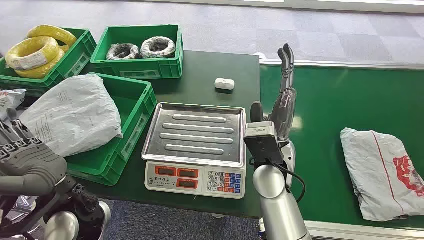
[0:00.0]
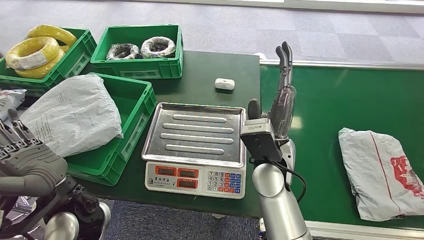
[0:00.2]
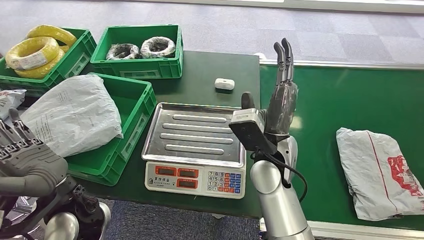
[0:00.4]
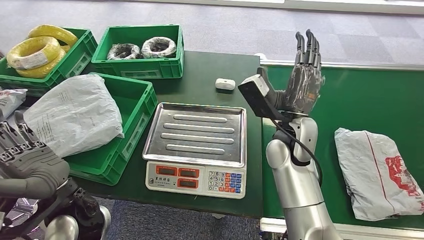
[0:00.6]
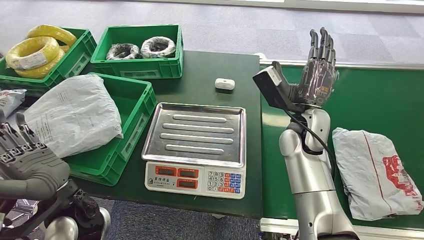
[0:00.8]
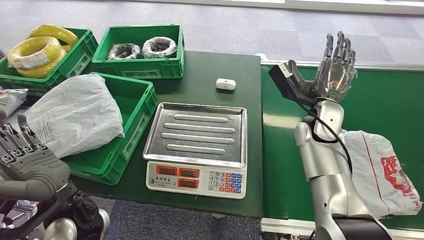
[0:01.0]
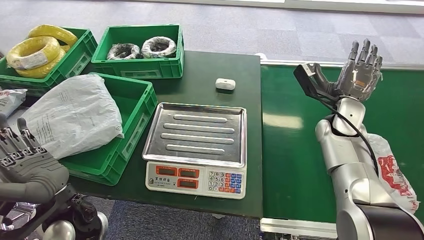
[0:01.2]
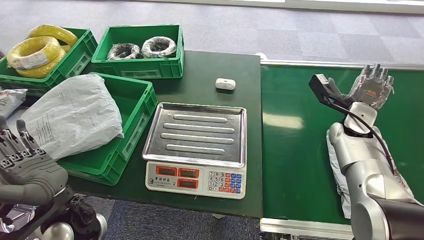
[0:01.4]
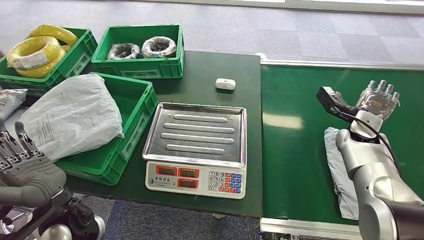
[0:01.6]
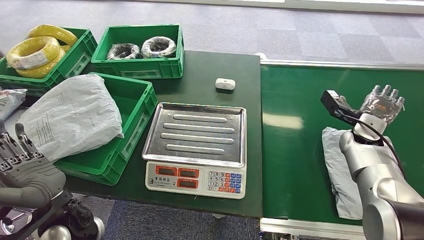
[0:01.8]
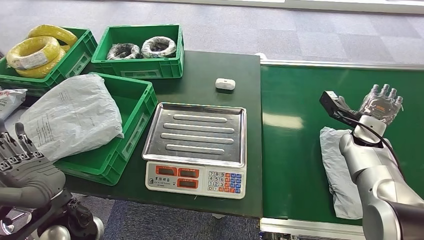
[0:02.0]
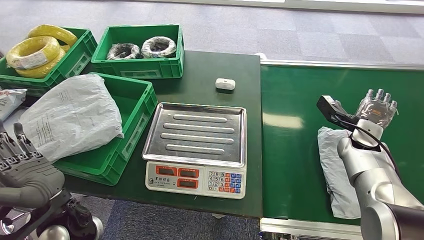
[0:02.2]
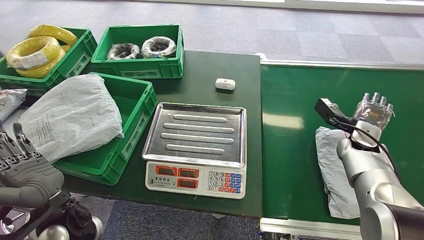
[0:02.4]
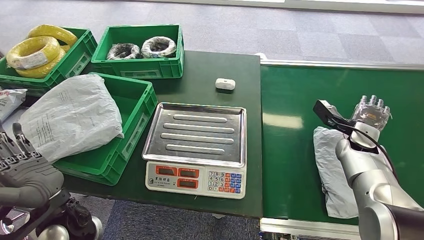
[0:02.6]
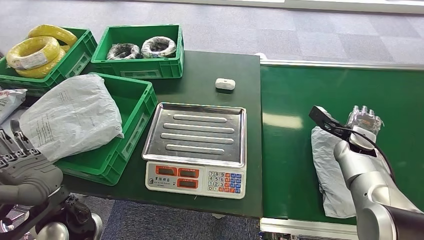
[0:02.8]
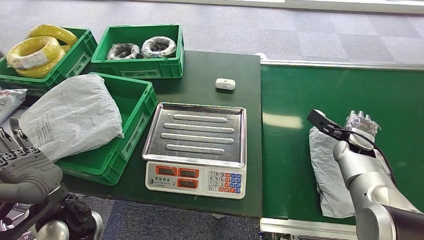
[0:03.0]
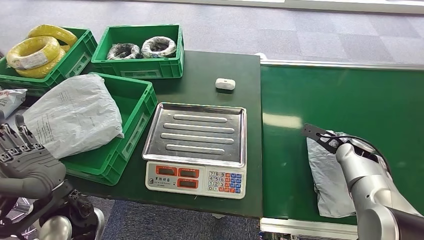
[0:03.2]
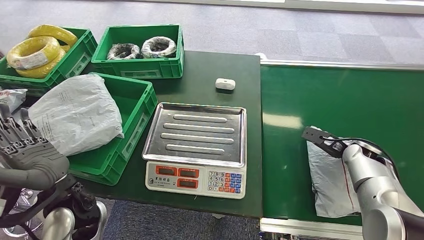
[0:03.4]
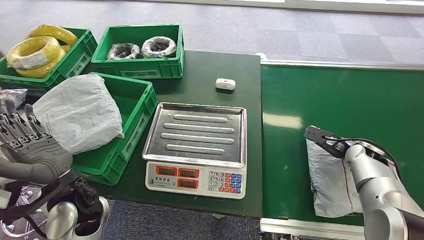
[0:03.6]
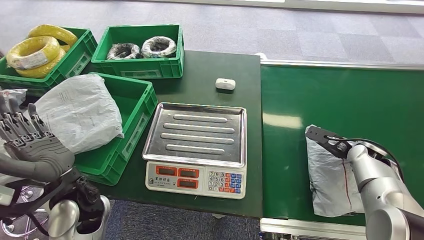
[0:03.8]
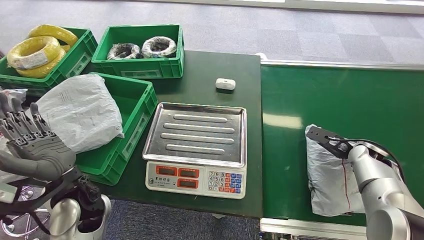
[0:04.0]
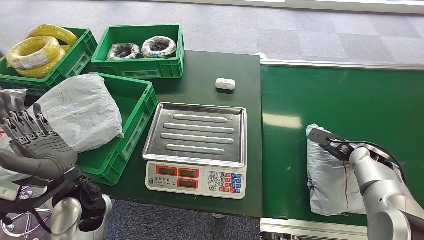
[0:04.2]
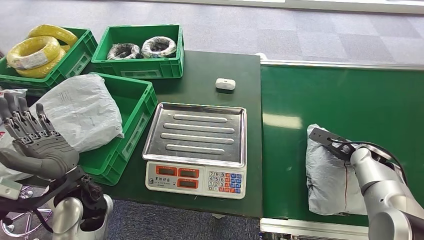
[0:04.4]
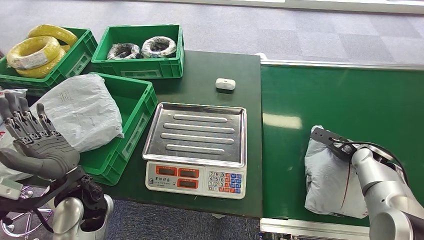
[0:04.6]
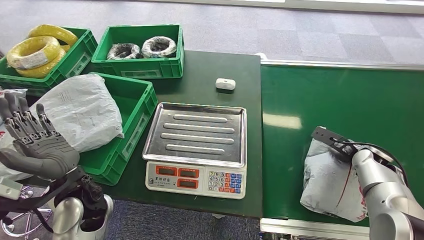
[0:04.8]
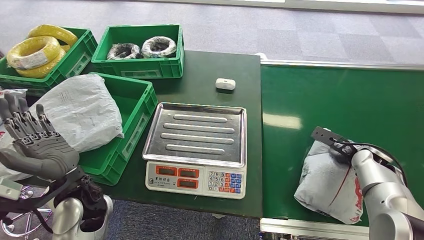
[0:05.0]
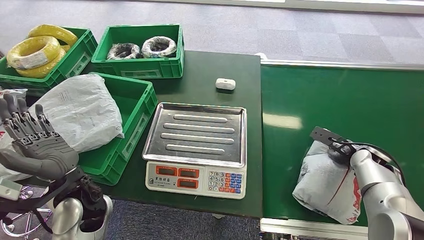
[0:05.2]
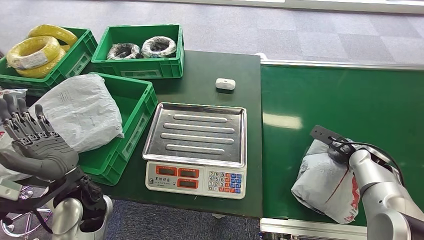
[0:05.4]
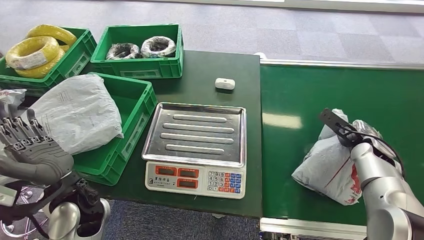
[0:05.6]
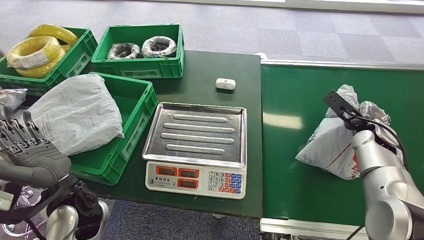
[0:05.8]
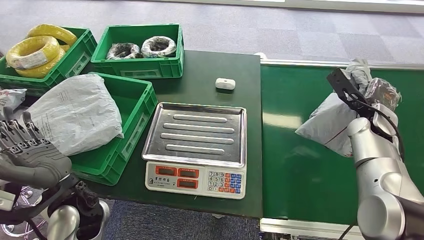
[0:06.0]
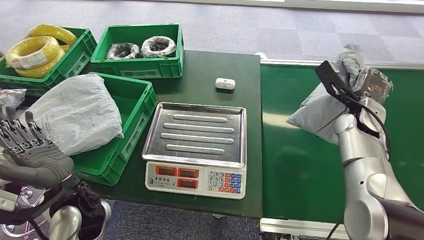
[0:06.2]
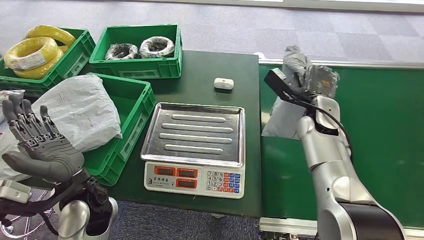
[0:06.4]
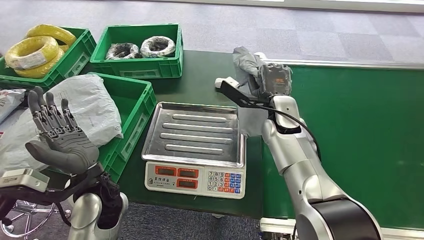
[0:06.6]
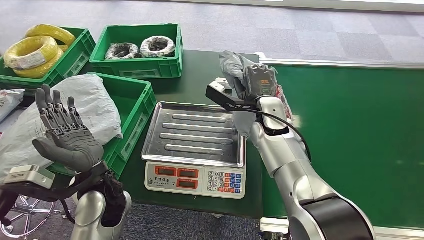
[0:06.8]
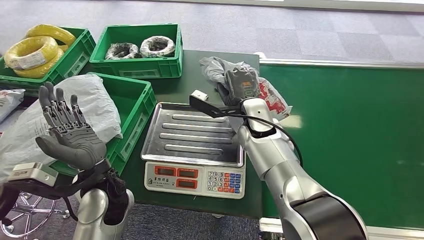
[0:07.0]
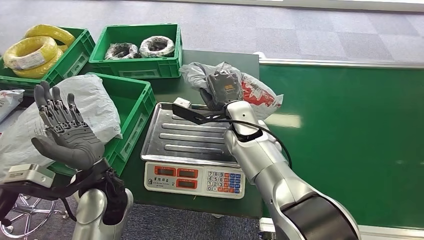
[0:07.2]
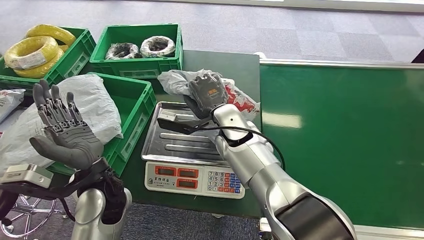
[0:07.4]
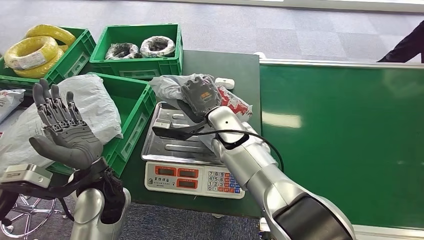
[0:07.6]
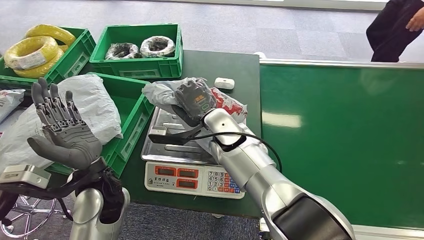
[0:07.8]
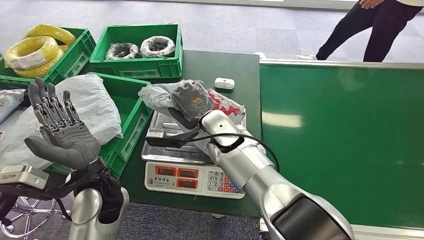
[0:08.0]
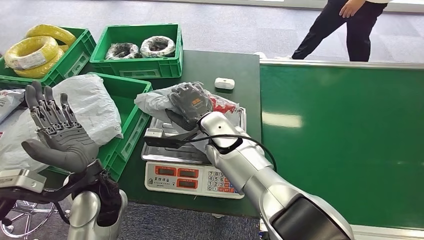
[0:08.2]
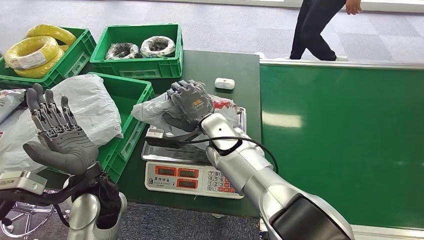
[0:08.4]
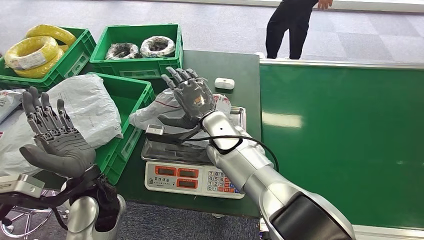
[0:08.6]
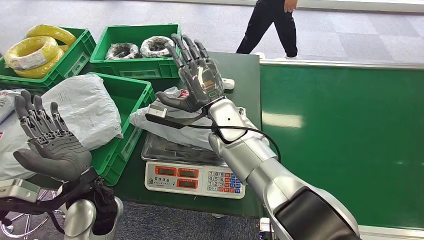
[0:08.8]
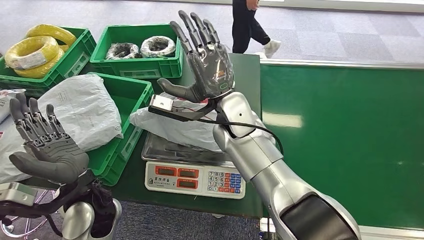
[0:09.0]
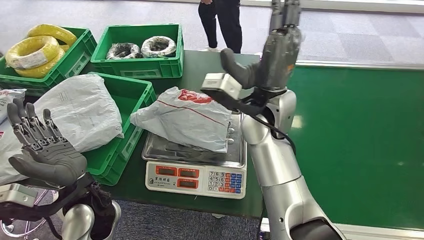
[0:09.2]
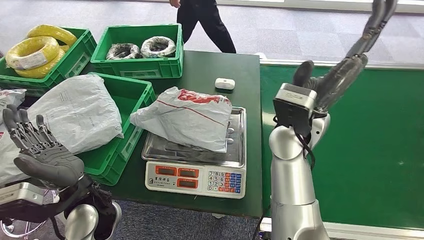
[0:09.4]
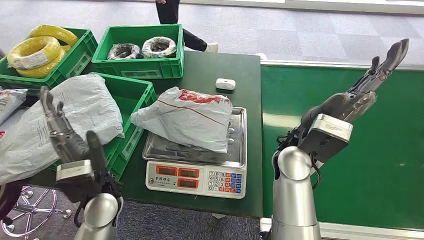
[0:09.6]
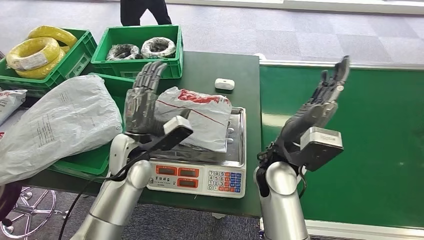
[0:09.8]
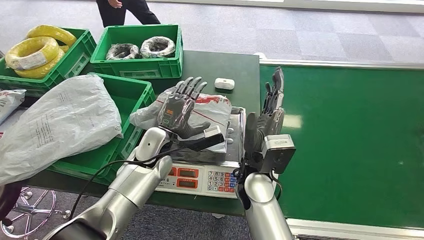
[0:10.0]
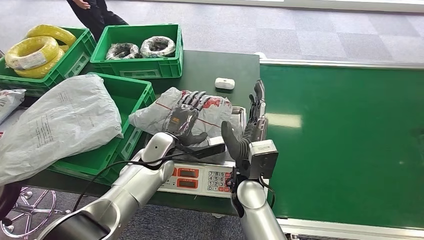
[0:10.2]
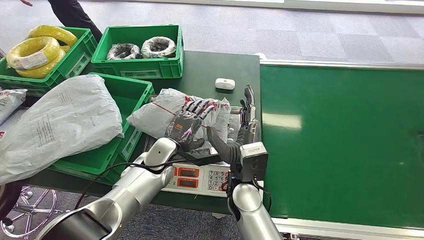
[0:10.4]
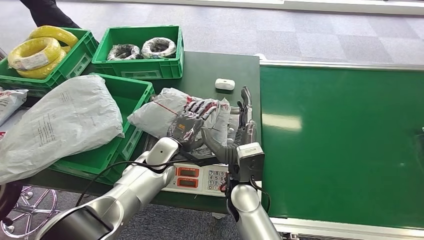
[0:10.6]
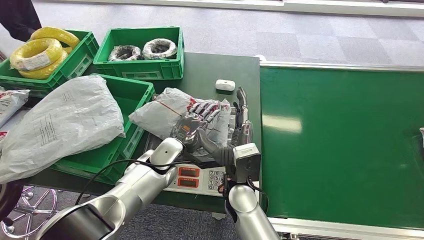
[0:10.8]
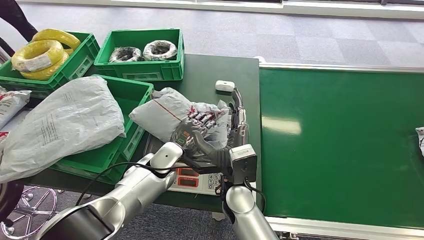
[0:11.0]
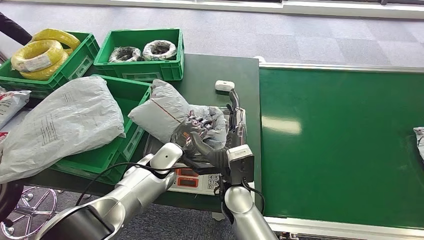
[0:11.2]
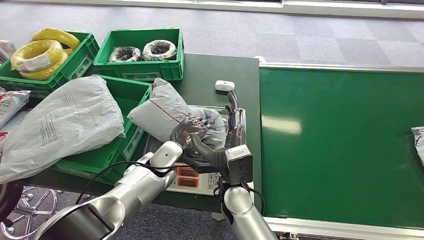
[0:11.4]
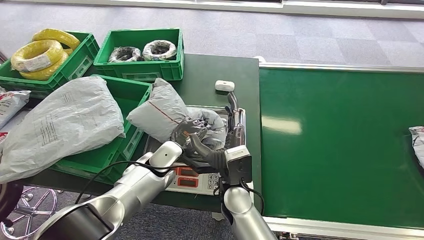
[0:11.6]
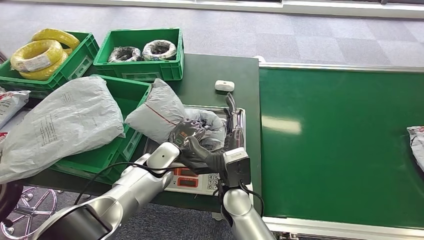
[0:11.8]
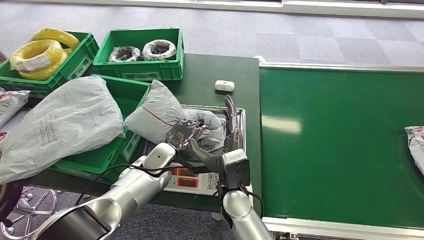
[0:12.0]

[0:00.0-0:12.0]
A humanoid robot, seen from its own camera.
Step, 0:00.0 to 0:06.2: Pick up the package from the conveyor belt.
Step, 0:06.4 to 0:09.4: Place the package onto the inbound machine.
0:01.6 to 0:03.0: The right hand moves roughly 5 cm.
0:03.0 to 0:04.4: The right hand shifts by roughly 5 cm.

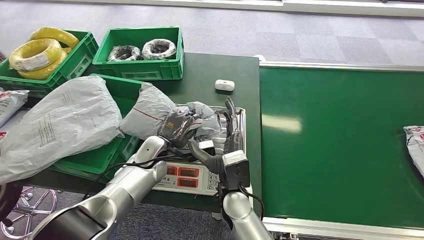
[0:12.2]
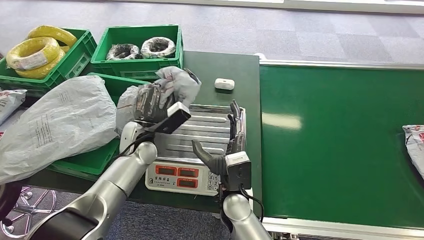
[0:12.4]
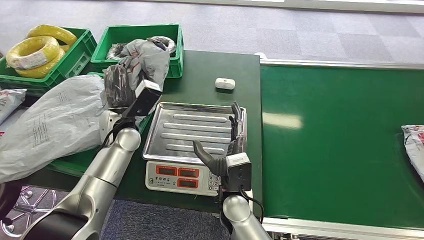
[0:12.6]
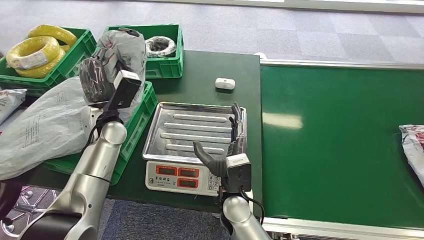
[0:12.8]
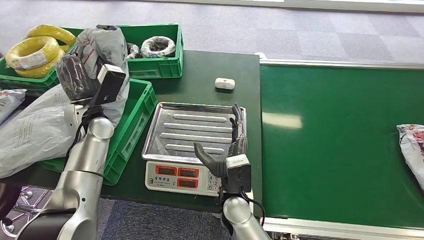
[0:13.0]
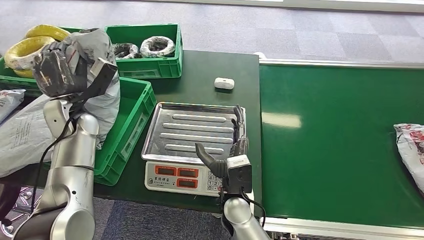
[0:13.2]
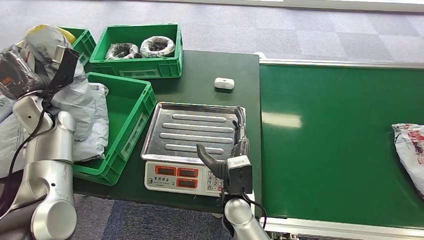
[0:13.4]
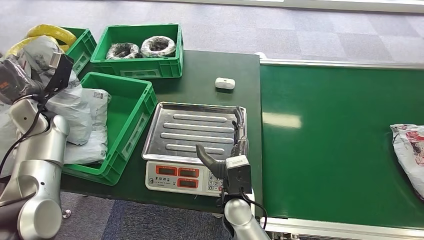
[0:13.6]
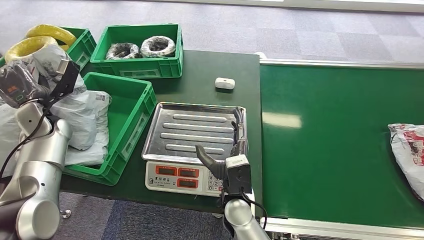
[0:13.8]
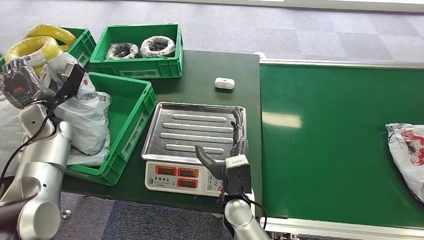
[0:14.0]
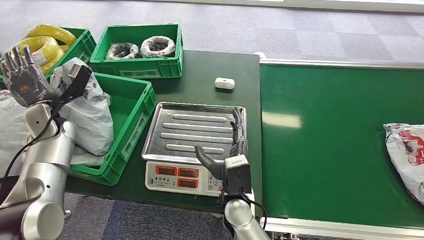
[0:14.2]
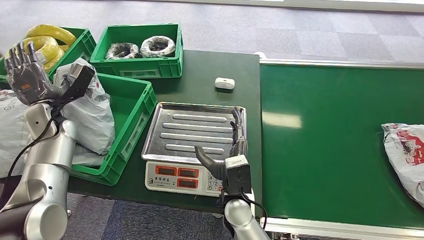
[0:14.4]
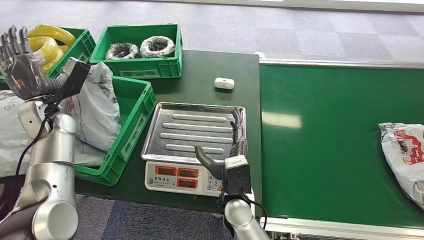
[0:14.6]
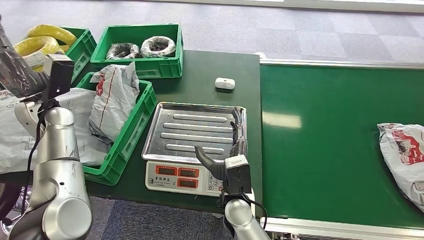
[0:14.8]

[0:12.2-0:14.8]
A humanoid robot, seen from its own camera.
Step, 0:13.4 to 0:14.8: Place the package into the parcel locker.

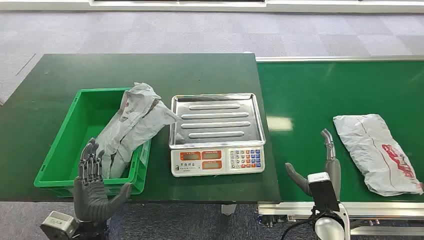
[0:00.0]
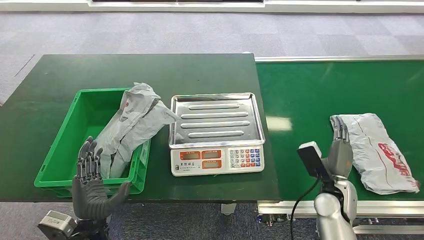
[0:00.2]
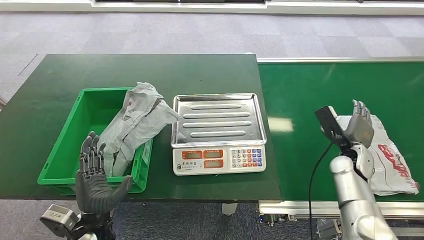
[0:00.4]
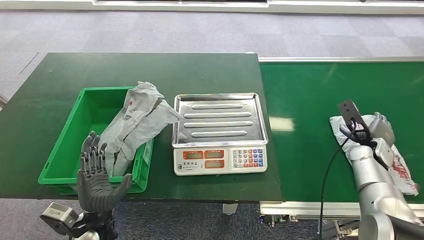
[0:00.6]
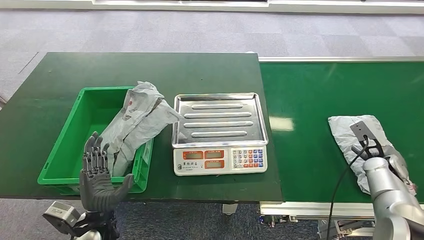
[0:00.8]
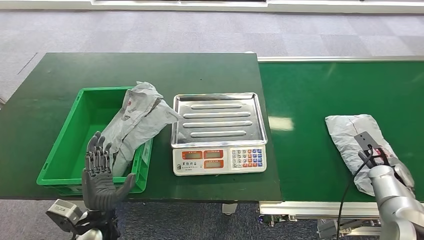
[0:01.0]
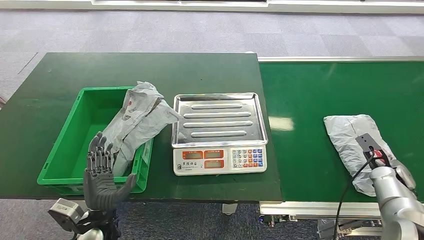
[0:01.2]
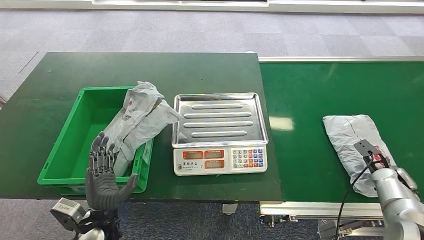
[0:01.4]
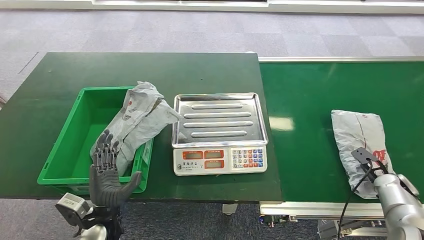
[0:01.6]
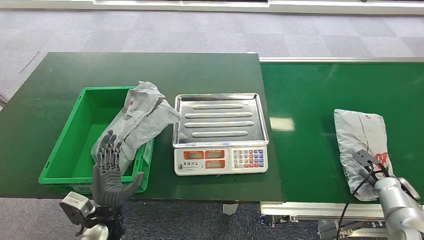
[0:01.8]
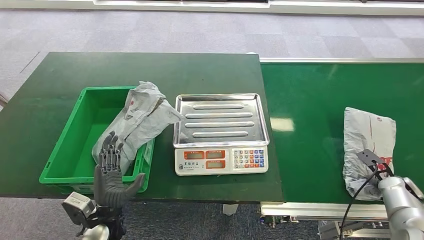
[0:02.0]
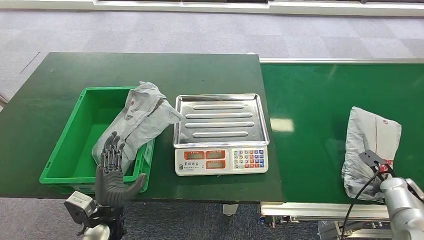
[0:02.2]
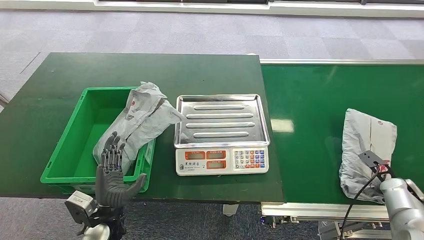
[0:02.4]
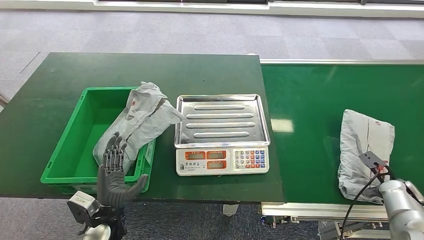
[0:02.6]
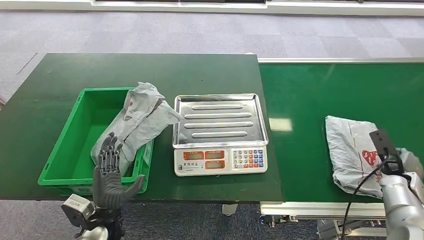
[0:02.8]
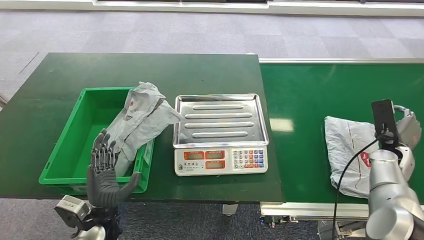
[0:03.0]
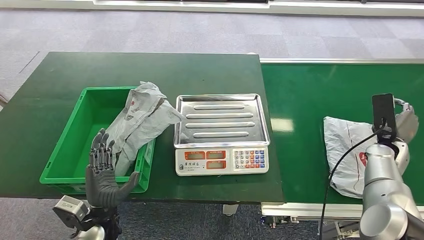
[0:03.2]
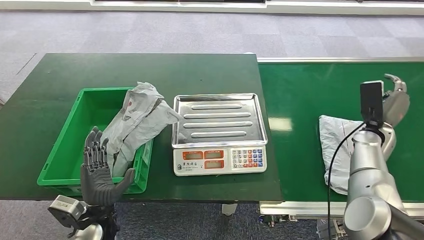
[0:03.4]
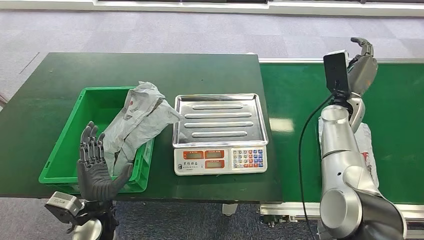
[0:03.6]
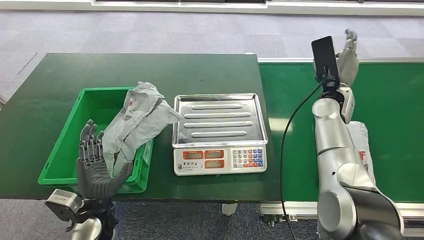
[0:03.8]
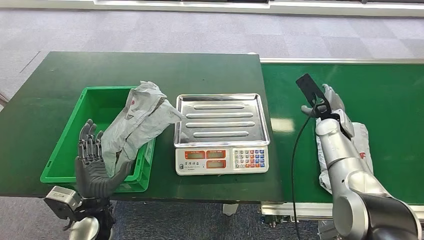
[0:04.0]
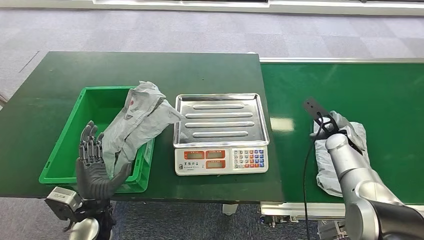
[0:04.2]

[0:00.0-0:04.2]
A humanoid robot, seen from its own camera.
0:02.8 to 0:04.2: The right hand goes about 20 cm to the left and forward.
